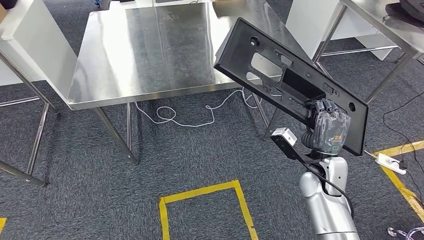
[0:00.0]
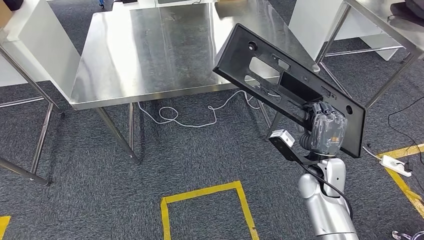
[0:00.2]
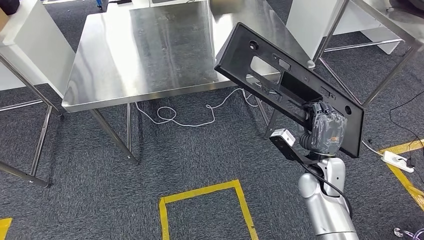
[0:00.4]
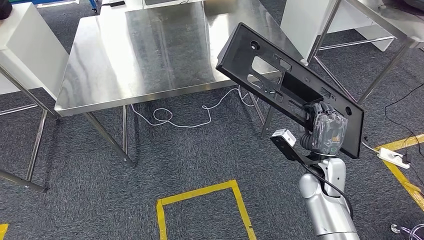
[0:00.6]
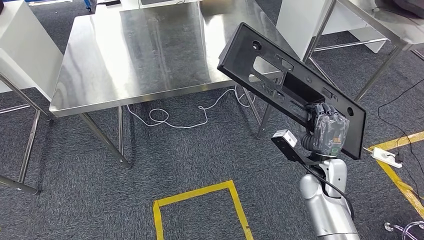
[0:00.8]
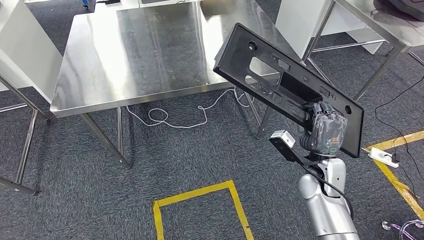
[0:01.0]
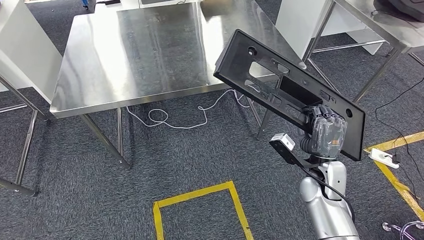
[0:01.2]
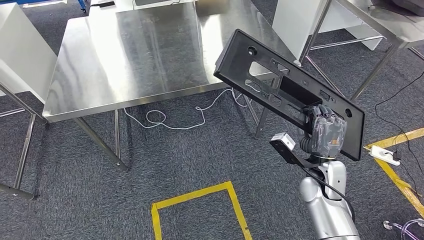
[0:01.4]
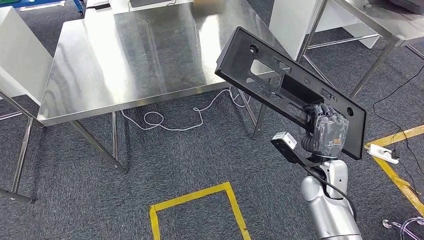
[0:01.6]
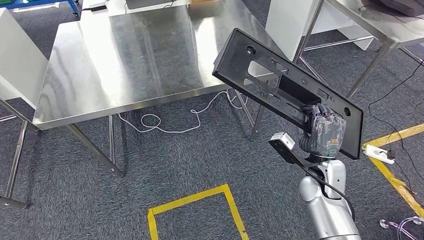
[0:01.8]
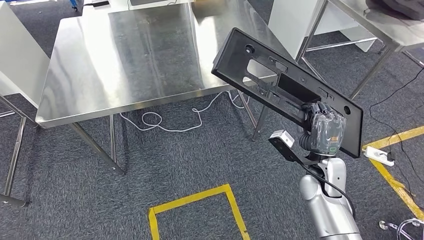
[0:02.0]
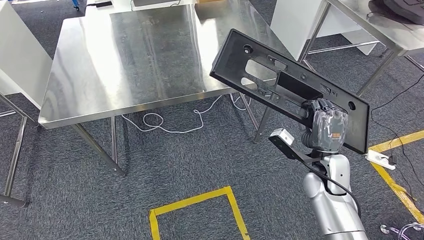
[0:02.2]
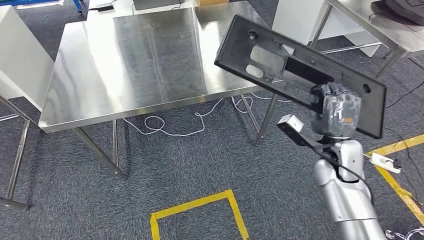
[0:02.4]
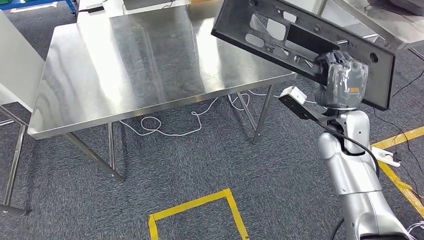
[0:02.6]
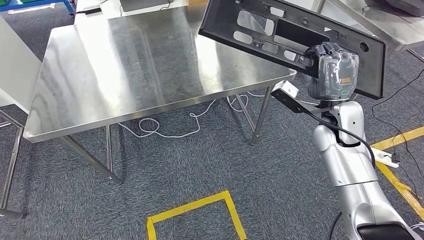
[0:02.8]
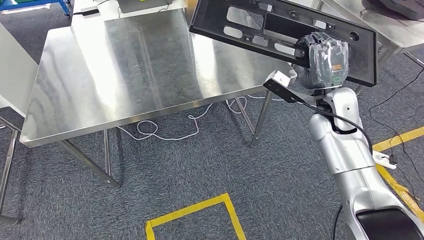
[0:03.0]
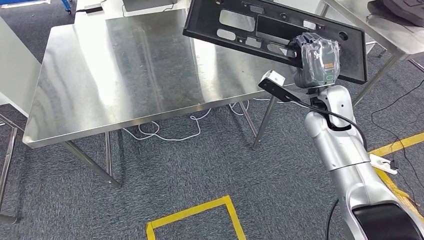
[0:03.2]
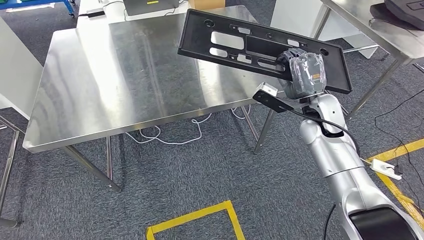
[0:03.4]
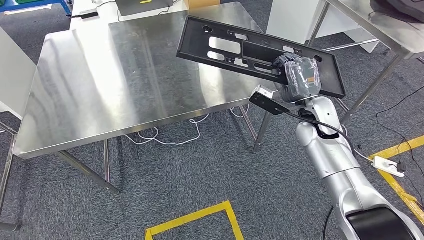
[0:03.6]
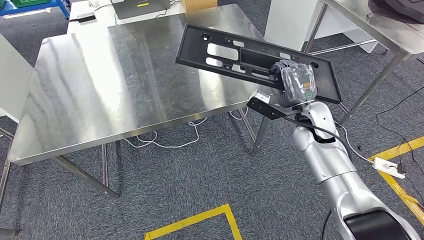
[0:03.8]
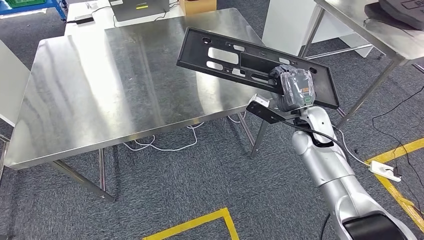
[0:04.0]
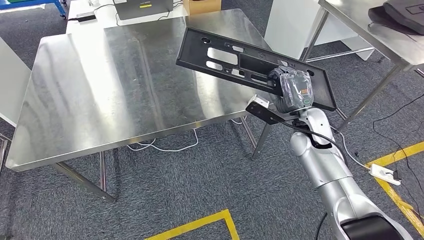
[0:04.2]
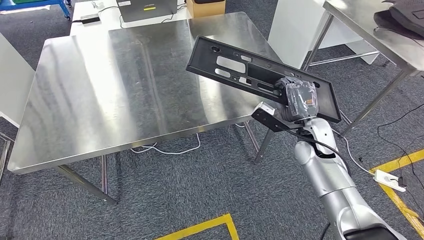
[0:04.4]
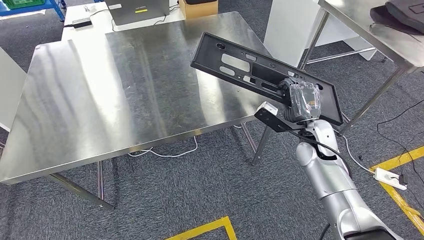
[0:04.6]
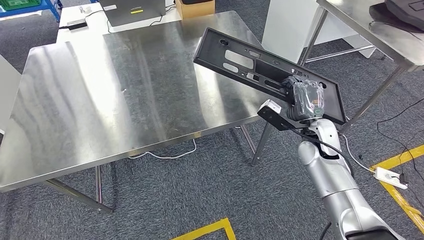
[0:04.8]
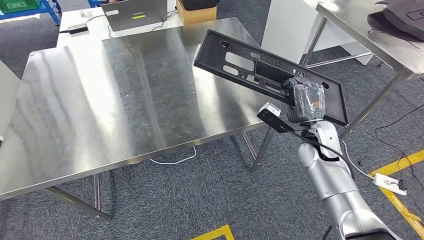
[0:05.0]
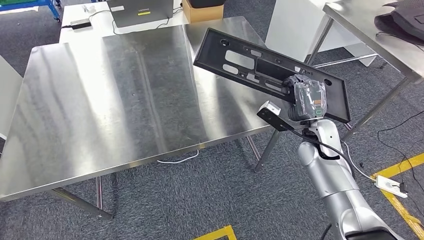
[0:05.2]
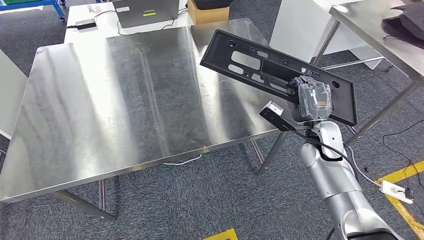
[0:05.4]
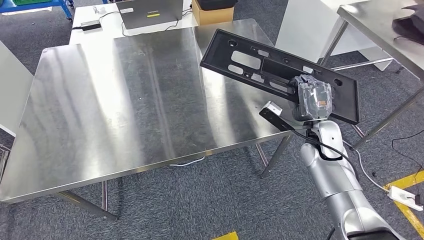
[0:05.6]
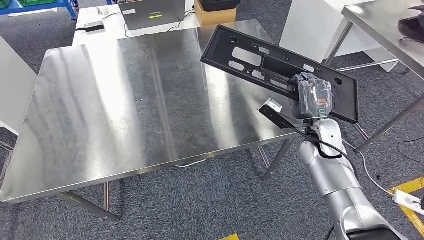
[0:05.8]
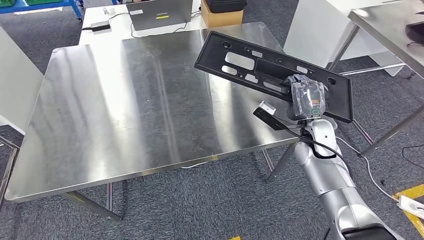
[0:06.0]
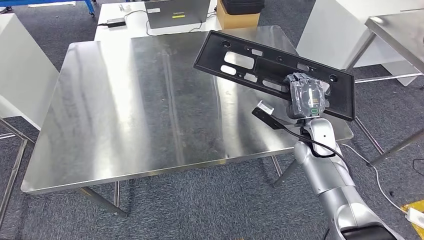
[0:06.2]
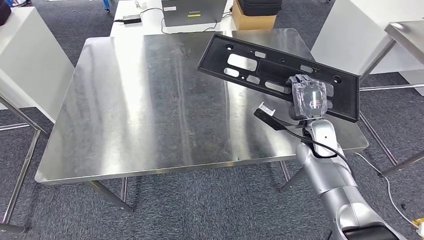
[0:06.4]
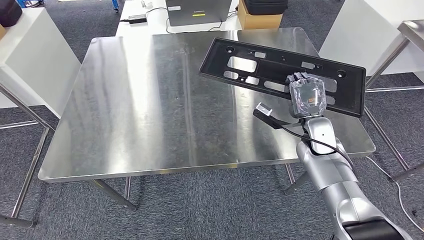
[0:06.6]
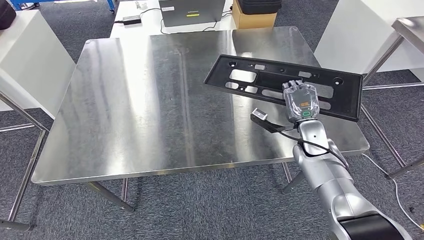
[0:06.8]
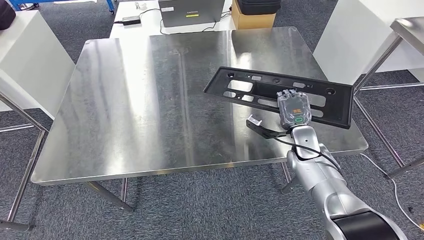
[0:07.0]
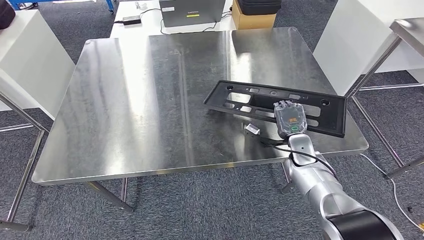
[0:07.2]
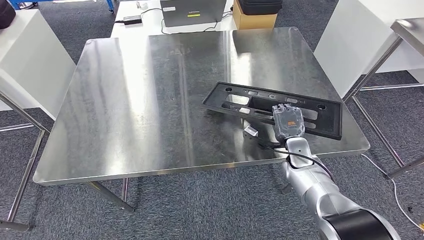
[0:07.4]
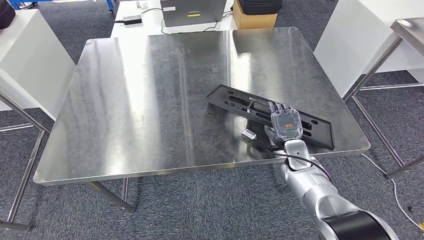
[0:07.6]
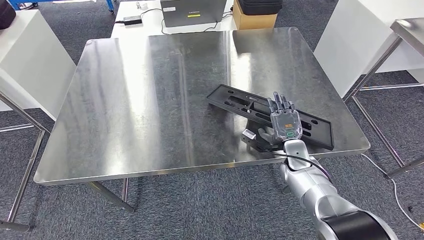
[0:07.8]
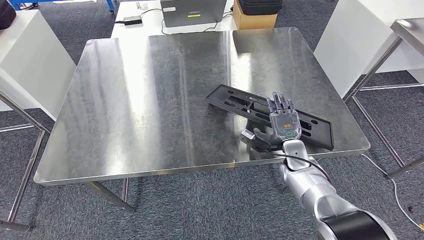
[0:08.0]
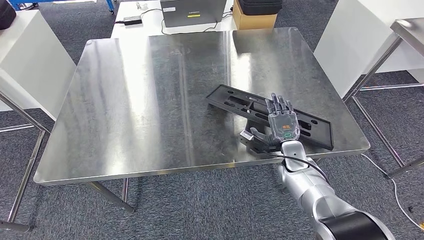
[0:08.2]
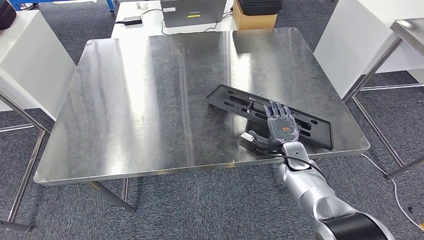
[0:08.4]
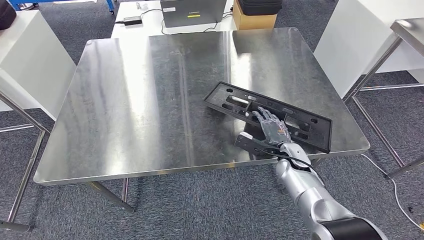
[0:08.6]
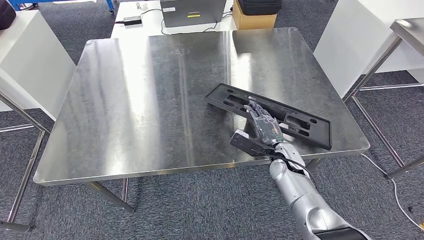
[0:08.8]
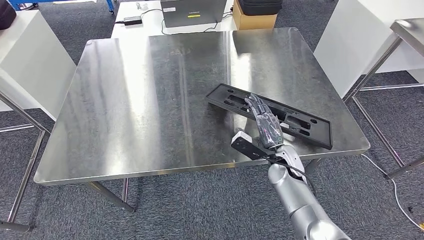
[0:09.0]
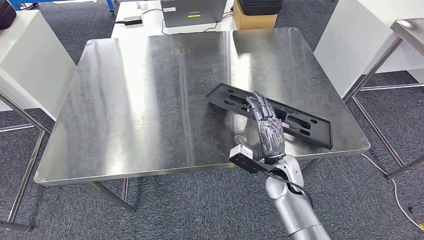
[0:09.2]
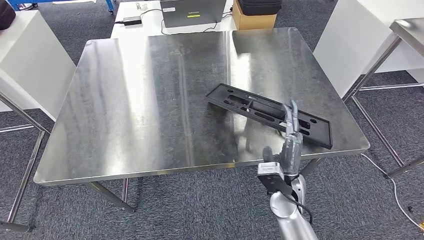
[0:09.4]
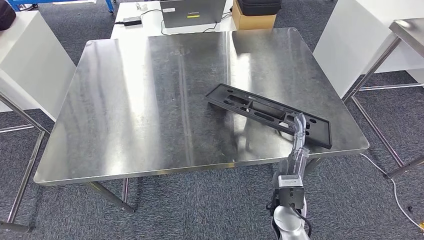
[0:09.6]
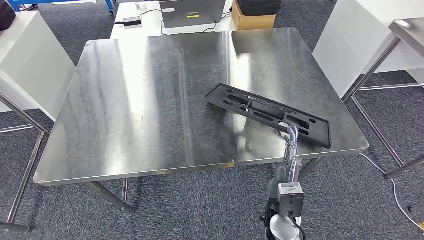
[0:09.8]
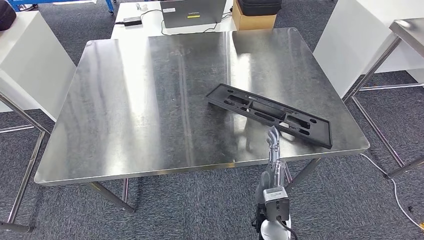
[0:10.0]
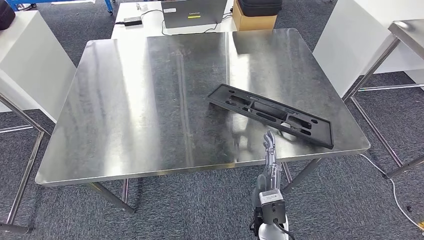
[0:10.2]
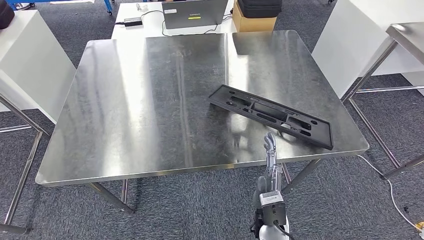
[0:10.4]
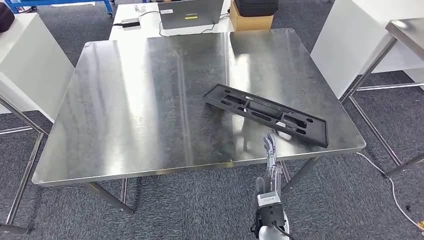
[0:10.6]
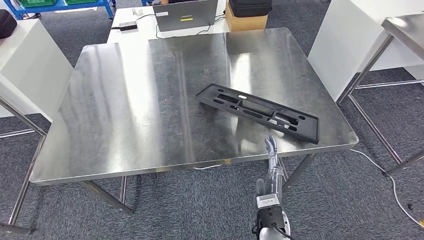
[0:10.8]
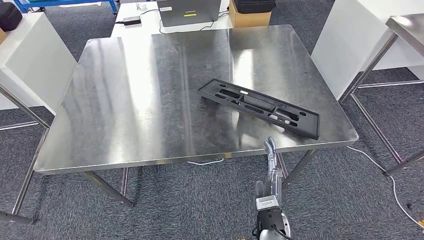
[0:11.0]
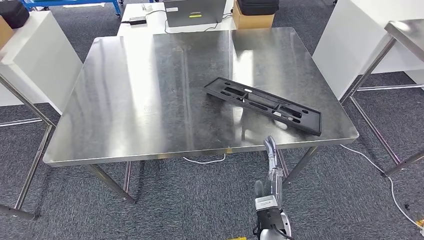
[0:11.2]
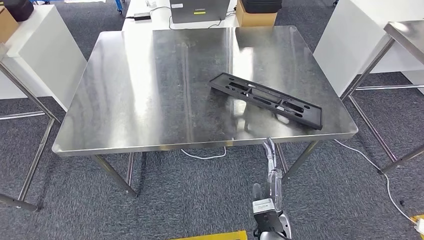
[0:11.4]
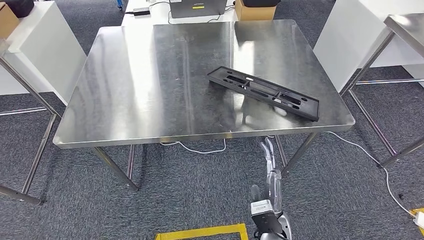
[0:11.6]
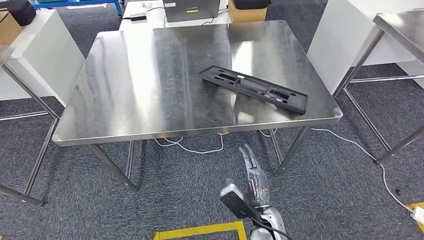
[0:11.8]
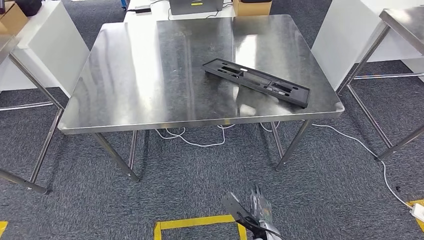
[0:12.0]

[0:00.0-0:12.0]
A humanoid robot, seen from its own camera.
Step, 0:00.0 to 0:09.0: Insert the large material into the corresponding slot on the workbench.
0:07.6 to 0:09.0: The right hand moves to the left, roughly 5 cm.
0:09.0 to 0:10.4: The right hand is displaced backward and to the left by roughly 15 cm.

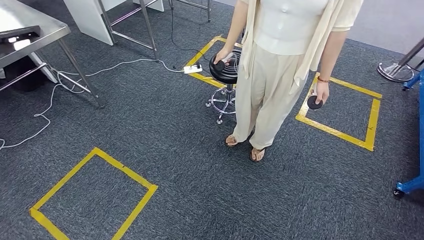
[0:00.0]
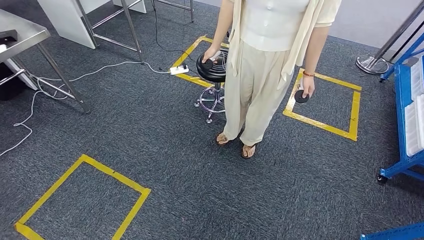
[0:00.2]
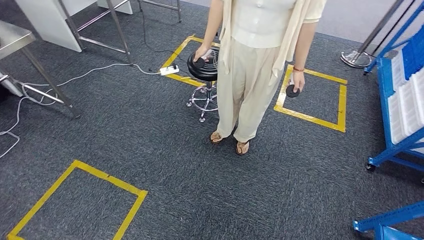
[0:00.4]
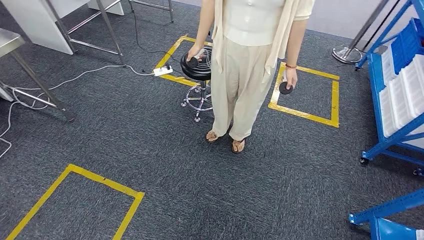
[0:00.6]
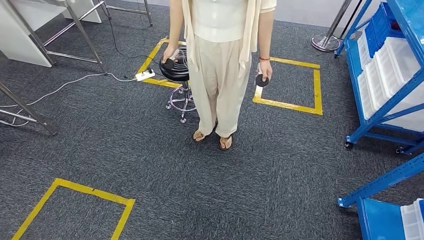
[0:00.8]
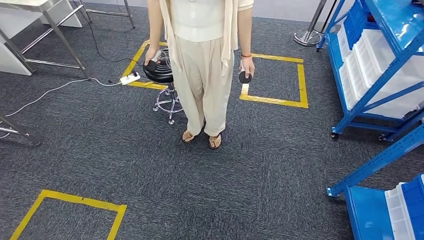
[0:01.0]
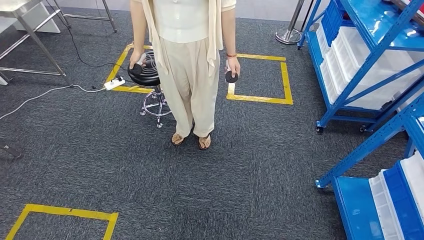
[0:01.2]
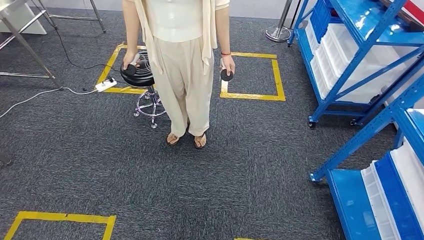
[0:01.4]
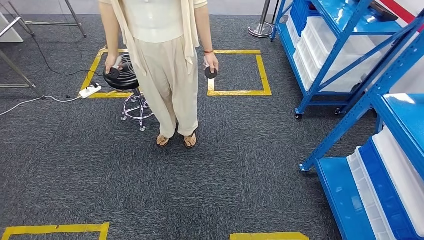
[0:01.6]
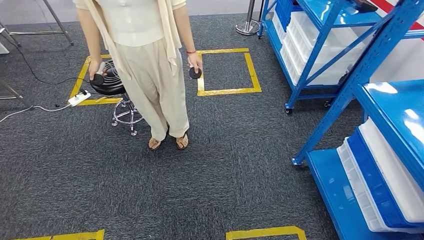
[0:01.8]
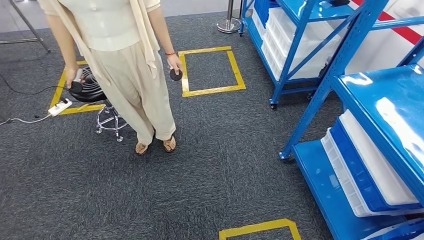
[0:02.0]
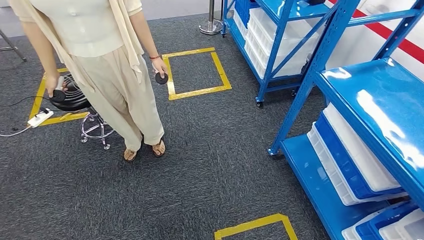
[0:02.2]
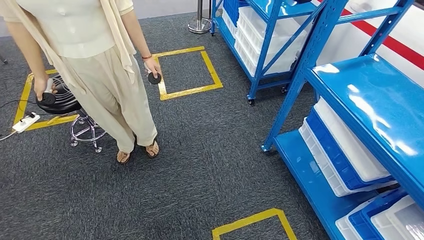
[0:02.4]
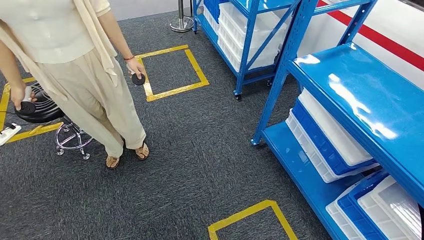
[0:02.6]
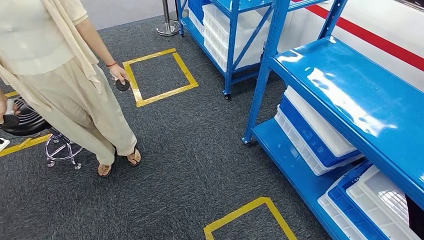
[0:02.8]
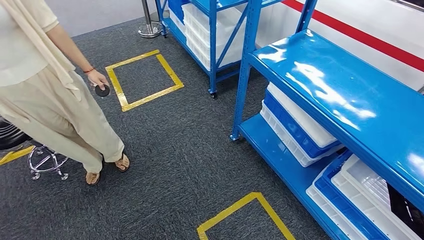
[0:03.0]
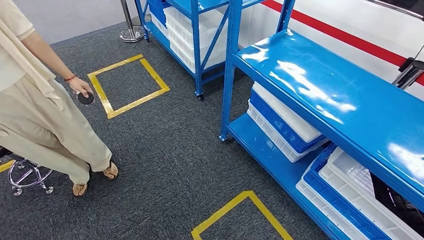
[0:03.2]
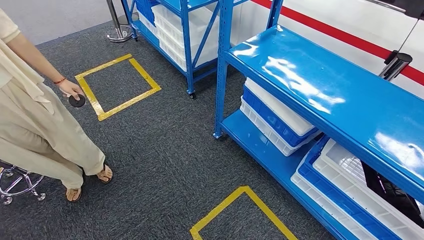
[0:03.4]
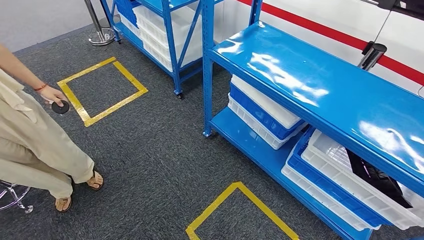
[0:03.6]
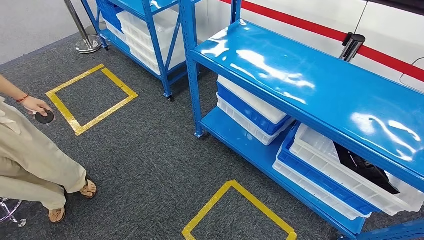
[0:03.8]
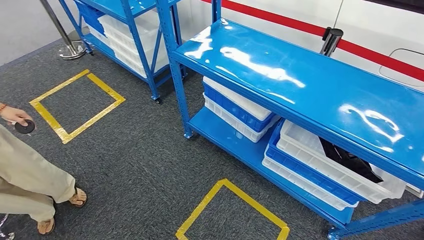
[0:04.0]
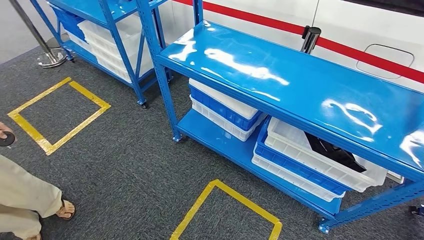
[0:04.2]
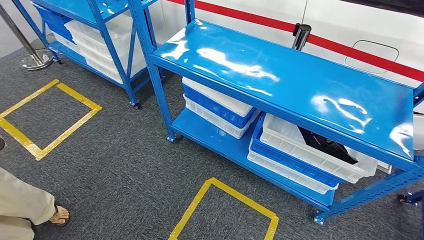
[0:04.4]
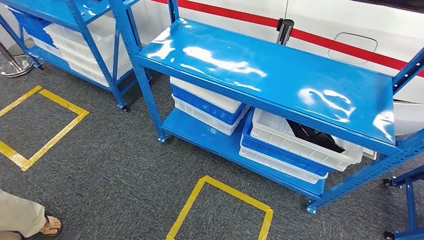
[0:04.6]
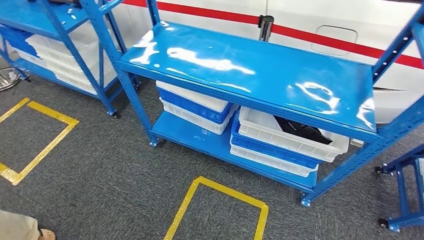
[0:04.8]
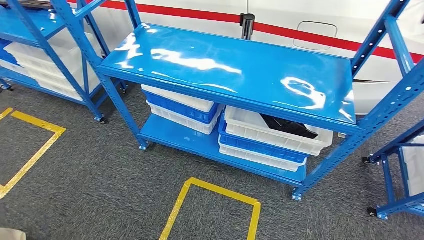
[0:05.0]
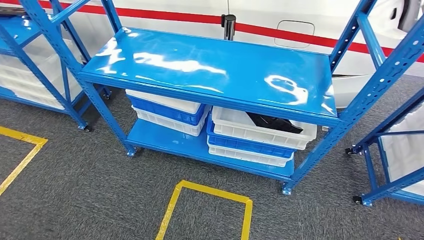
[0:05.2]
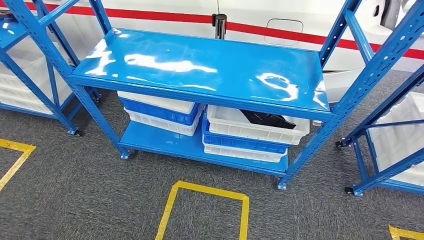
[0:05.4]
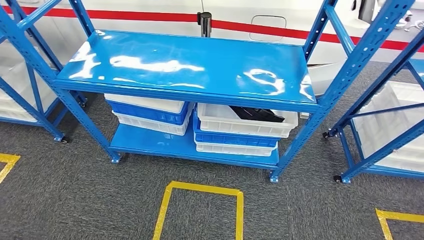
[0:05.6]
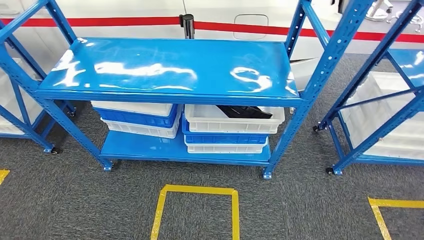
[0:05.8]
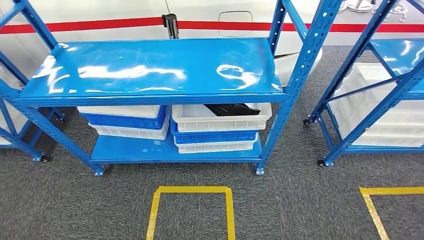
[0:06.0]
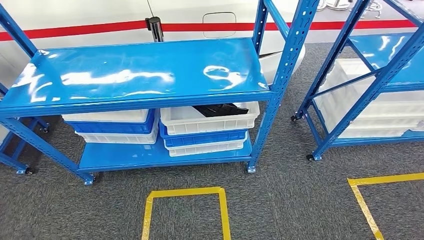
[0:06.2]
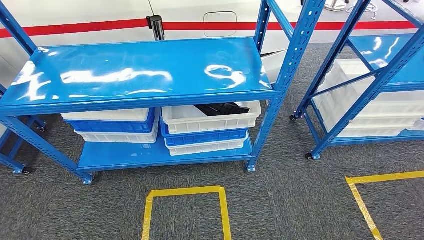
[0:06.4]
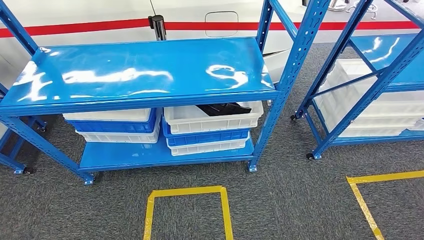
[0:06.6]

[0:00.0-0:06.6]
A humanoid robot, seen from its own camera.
Step, 0:00.0 to 0:06.6: Move to the initial position of the shelf.
